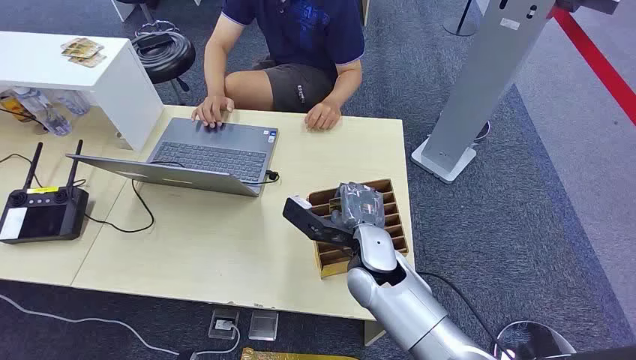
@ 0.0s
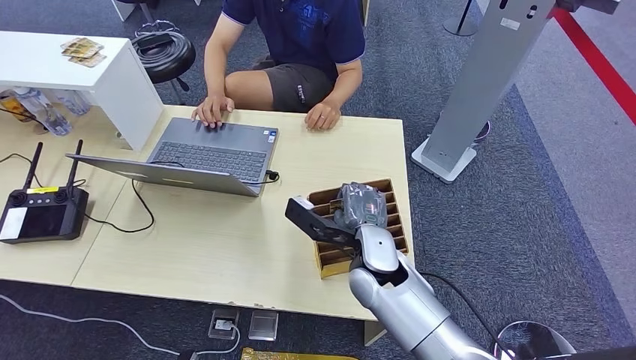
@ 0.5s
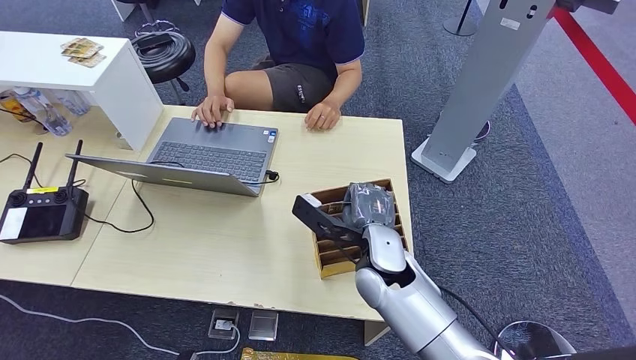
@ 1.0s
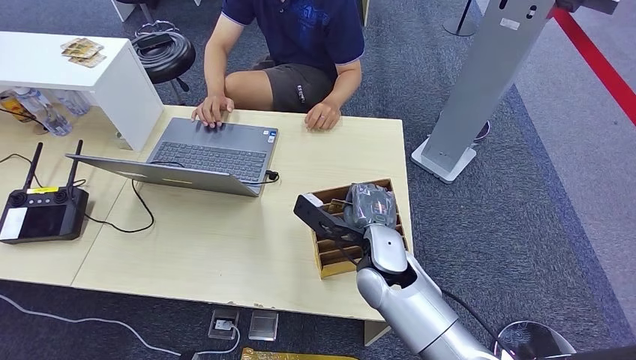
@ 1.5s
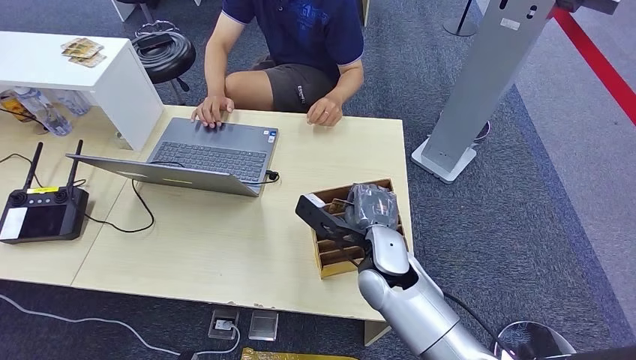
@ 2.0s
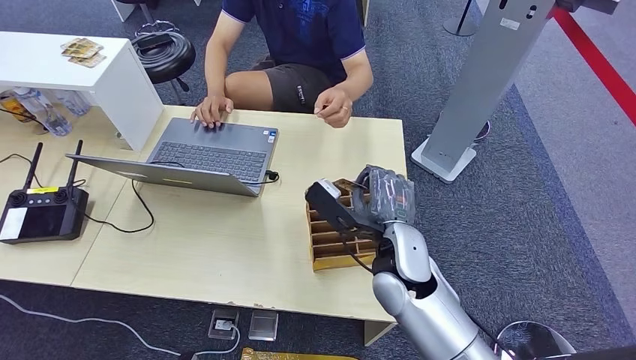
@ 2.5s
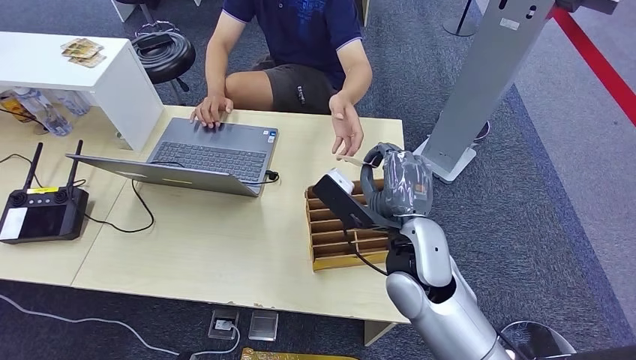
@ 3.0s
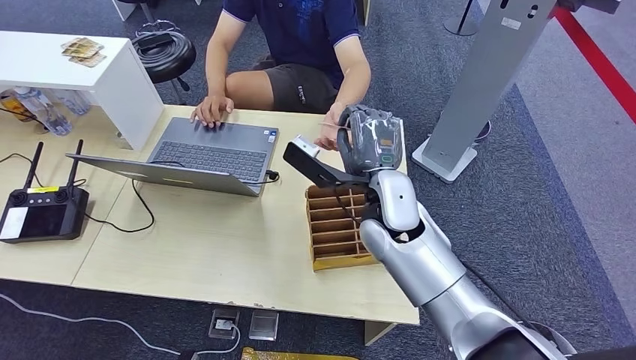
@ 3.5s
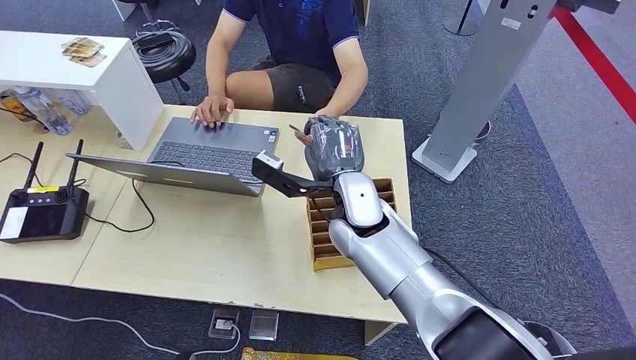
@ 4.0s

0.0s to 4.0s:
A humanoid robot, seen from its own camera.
Step, 0.0s to 2.0s: Pick up the room card from the card holder.
Step, 3.5s to 4.0s: Hand the room card to the target.
2.0s to 4.0s: The right hand shifts some 10 cm upward, forward and to the left.
